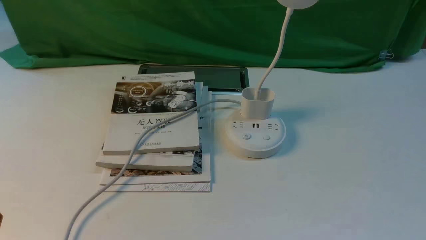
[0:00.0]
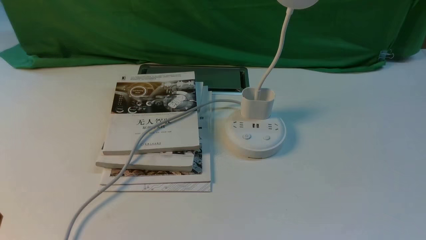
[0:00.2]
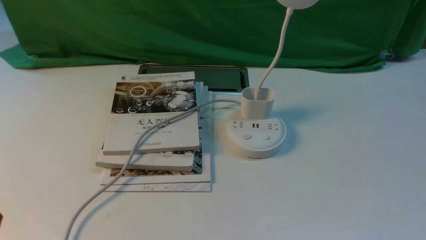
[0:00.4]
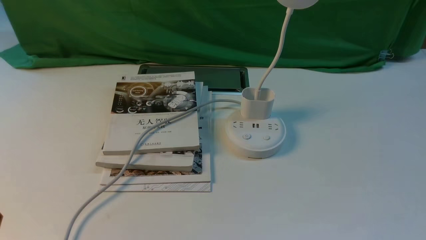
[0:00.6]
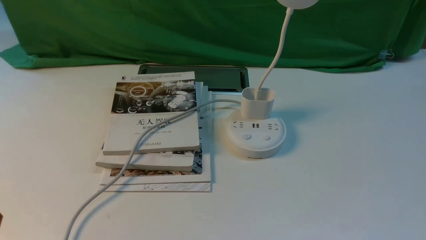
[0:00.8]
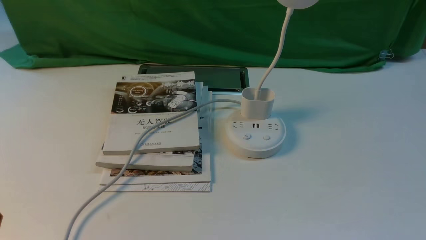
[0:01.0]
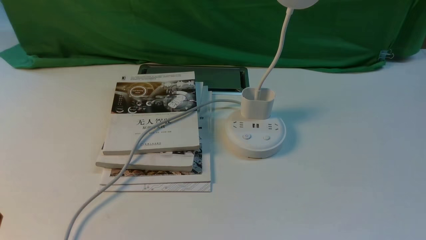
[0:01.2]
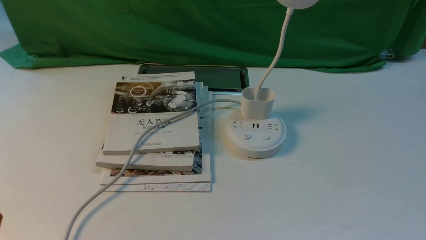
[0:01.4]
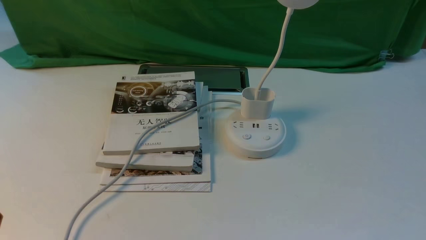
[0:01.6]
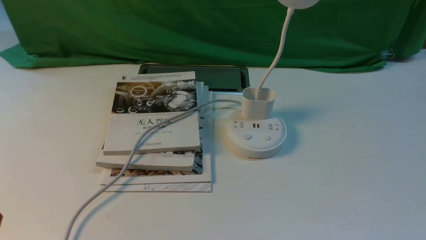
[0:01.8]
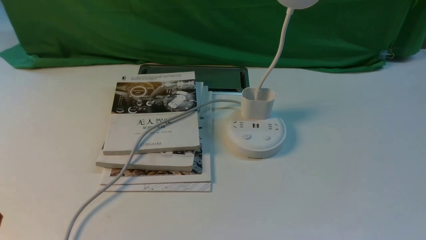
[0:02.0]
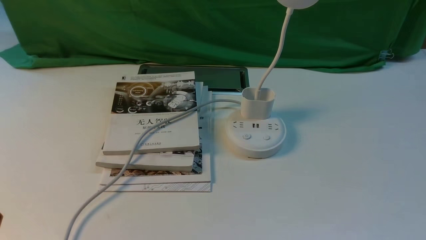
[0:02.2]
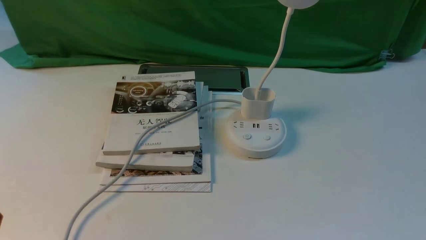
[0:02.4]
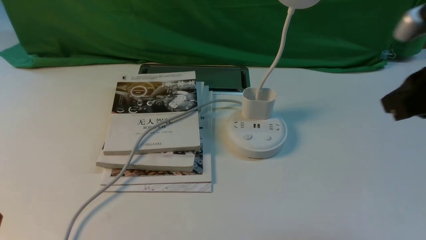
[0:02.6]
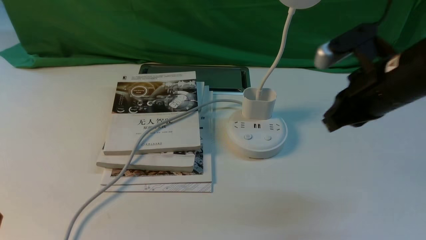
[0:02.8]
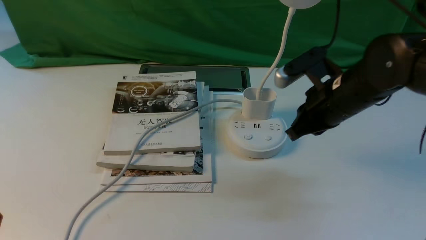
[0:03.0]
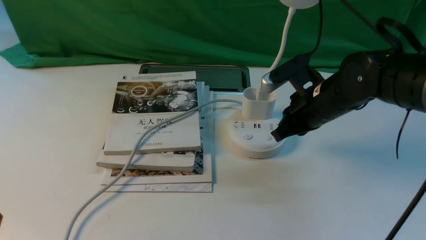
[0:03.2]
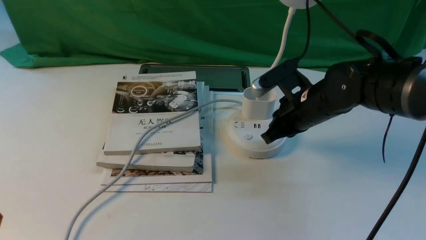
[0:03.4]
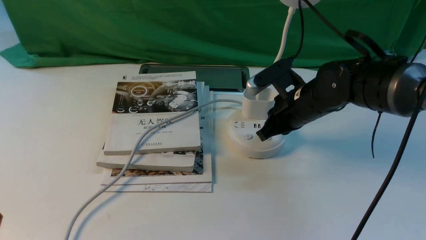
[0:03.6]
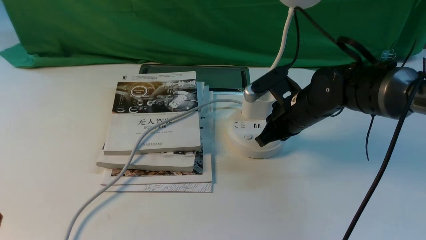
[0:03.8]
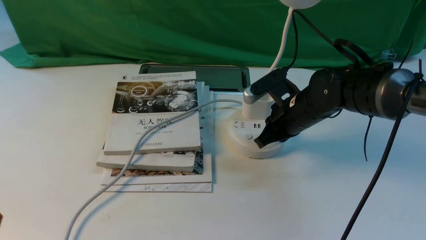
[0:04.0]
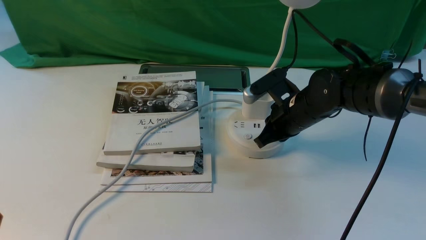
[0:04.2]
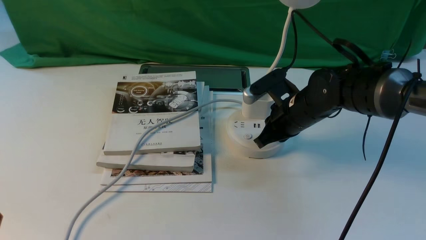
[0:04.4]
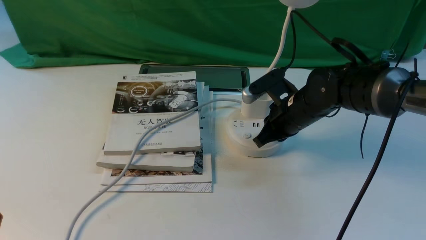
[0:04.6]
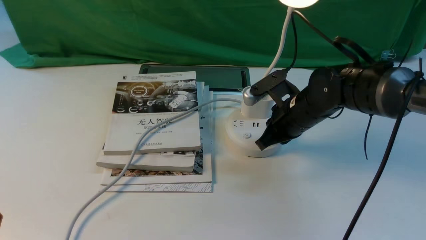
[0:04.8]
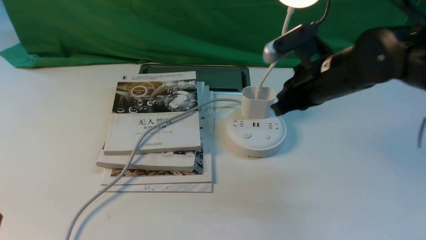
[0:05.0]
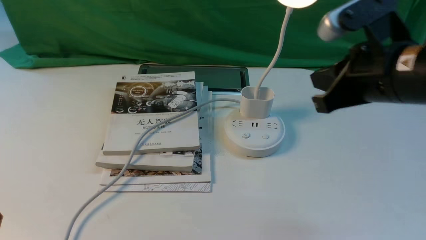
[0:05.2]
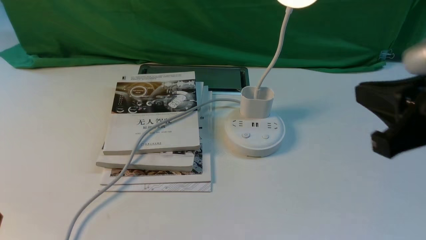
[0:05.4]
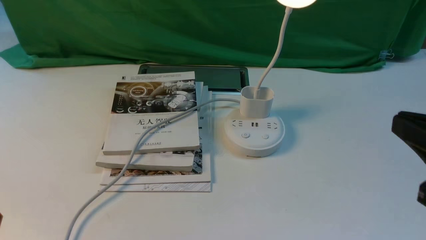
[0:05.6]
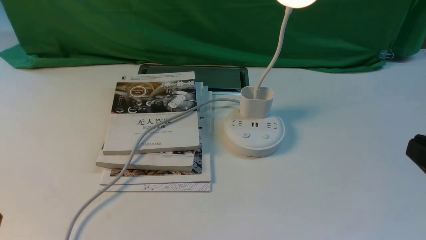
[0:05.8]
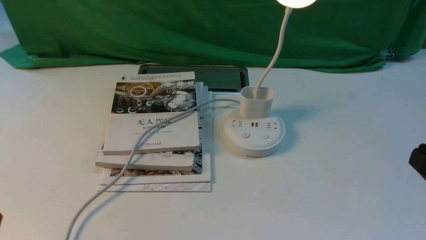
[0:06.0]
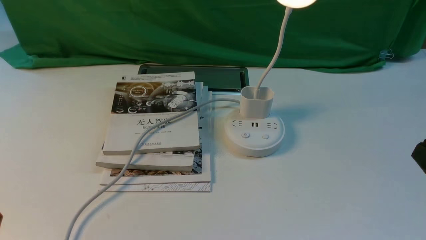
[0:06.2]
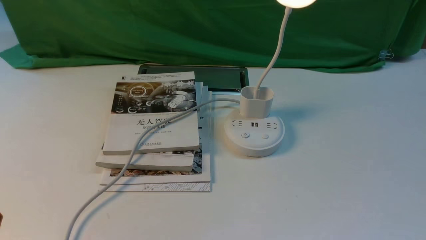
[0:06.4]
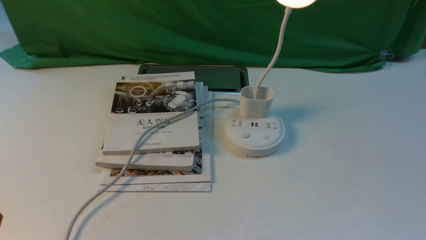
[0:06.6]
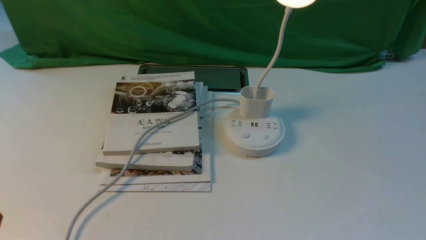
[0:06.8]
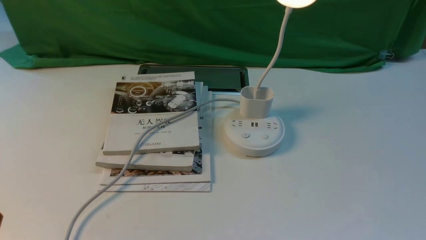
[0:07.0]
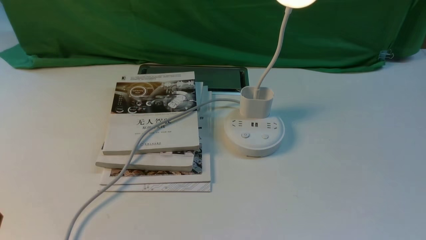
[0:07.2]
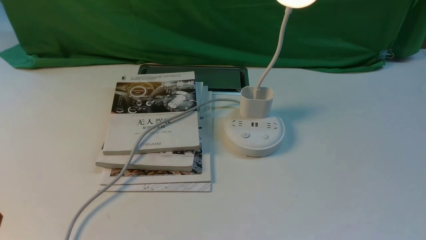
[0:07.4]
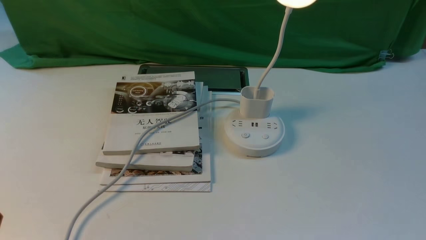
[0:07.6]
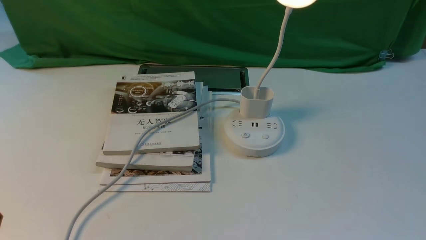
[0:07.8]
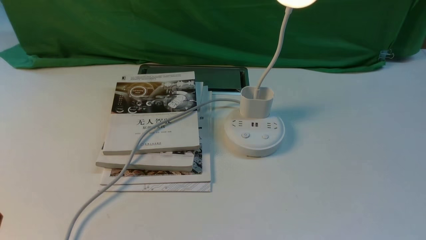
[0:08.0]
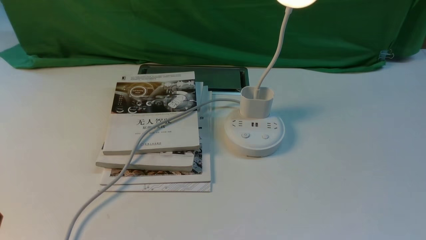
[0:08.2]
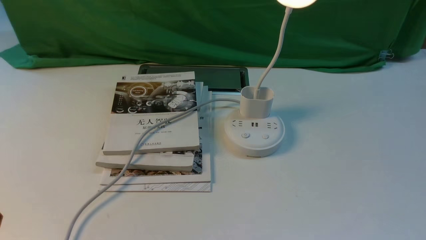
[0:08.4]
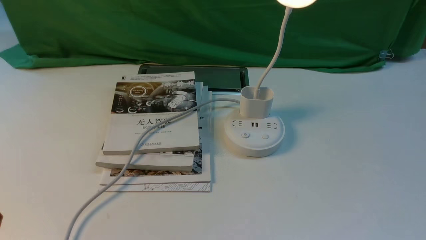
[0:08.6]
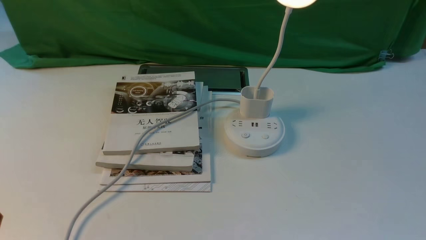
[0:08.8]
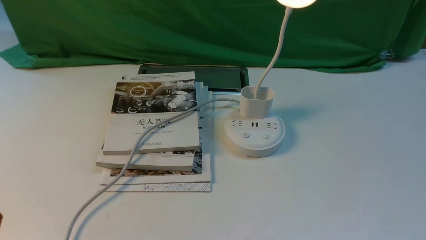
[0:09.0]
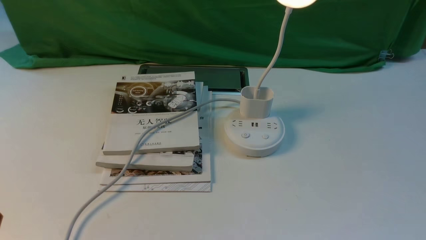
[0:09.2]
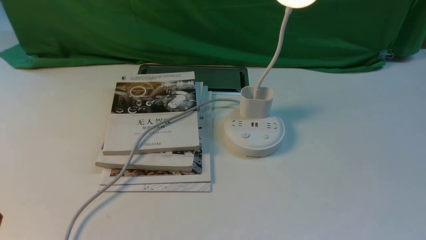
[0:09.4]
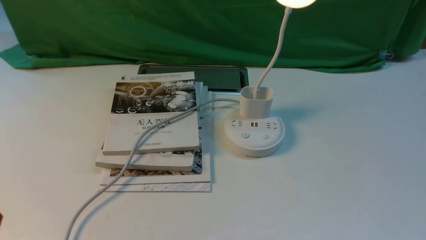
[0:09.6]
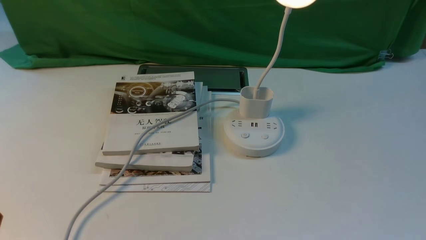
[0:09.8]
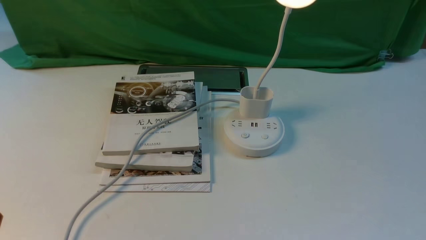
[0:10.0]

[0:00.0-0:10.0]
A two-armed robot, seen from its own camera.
Step, 0:00.0 to 0:05.0: use the right arm to press the button switch on the lamp holder.
0:01.4 to 0:02.8: The right gripper moves forward, to the left and upward, approximately 30 cm, and closes.
0:02.8 to 0:04.2: The right gripper goes about 15 cm downward, to the left and forward.
0:04.2 to 0:05.8: The right gripper heads backward, to the right and upward, covering some 35 cm.
0:07.2 to 0:10.0: Both grippers stay put.
